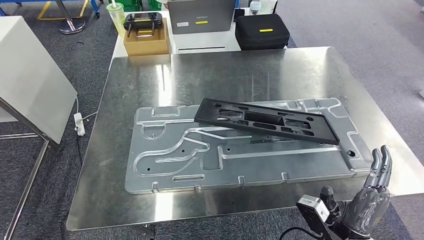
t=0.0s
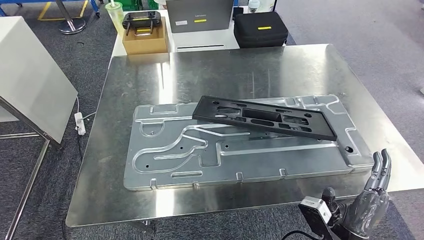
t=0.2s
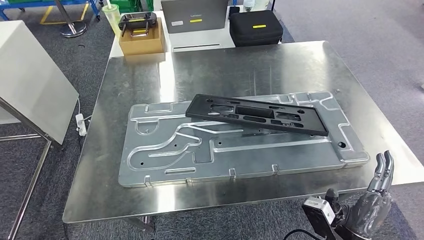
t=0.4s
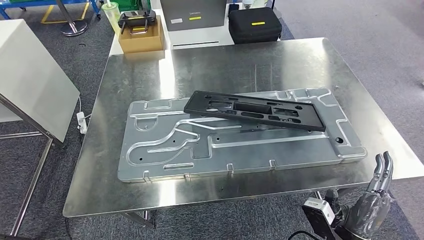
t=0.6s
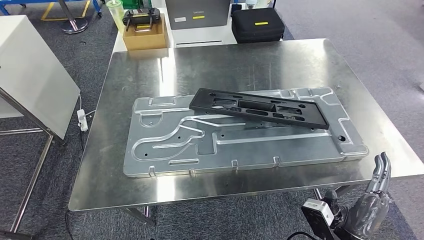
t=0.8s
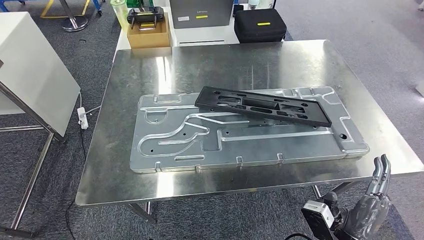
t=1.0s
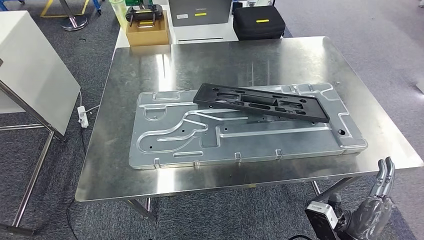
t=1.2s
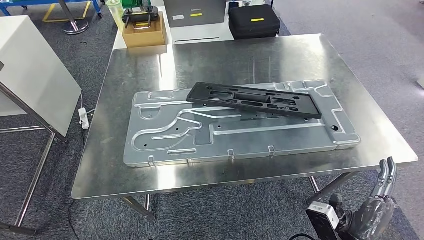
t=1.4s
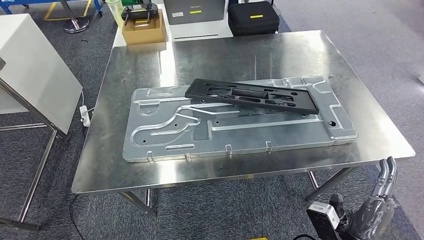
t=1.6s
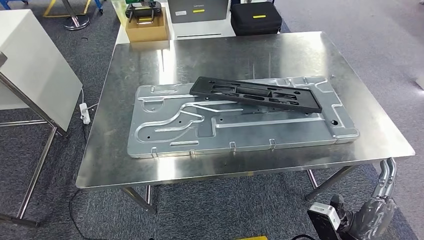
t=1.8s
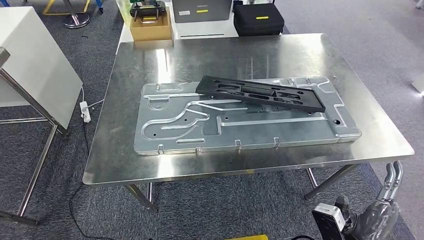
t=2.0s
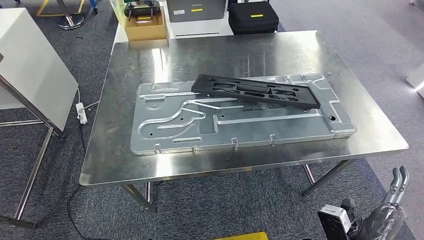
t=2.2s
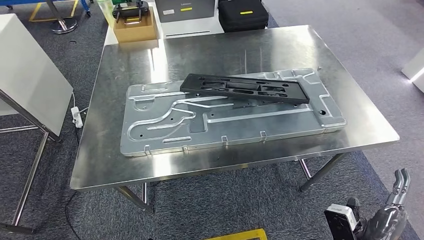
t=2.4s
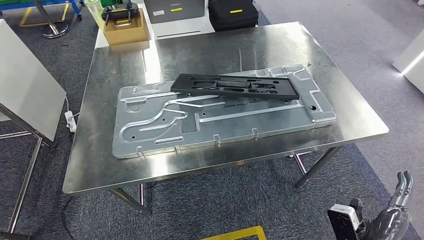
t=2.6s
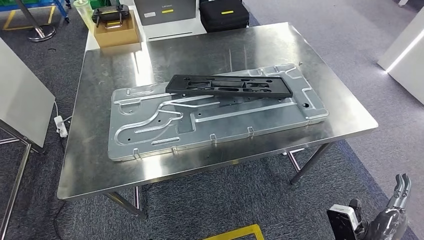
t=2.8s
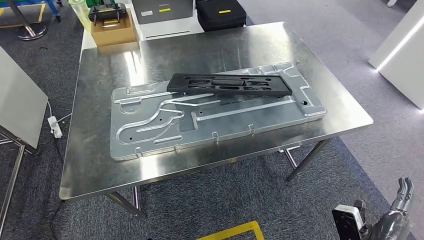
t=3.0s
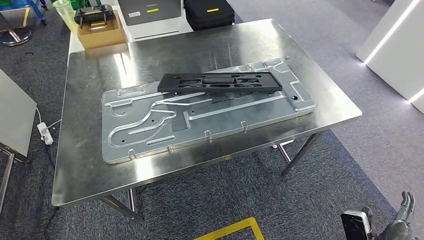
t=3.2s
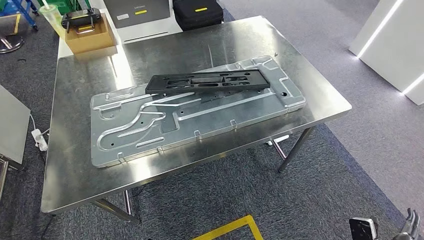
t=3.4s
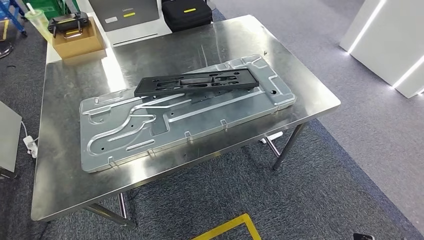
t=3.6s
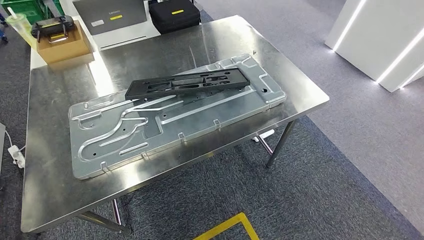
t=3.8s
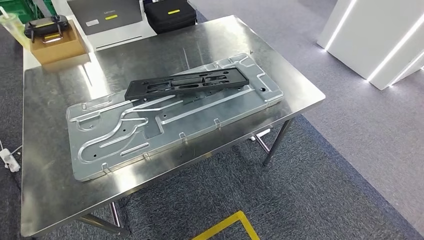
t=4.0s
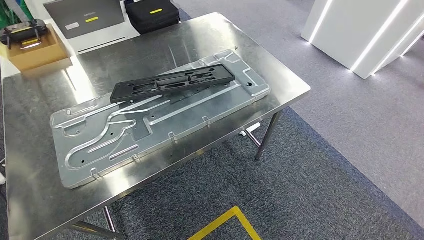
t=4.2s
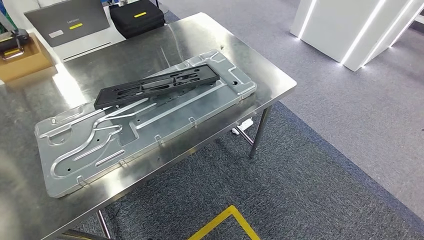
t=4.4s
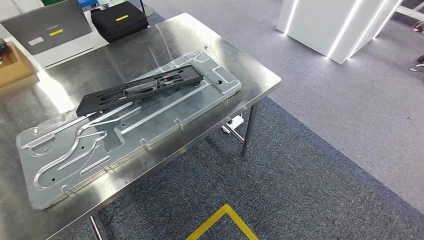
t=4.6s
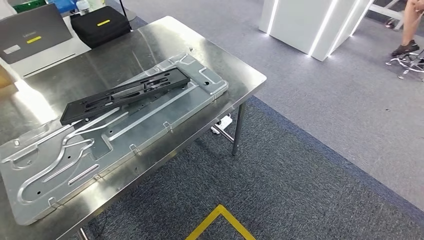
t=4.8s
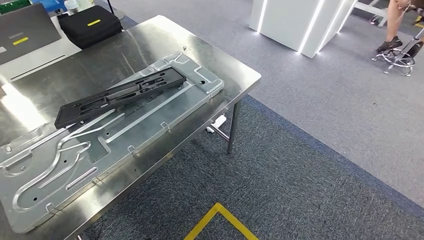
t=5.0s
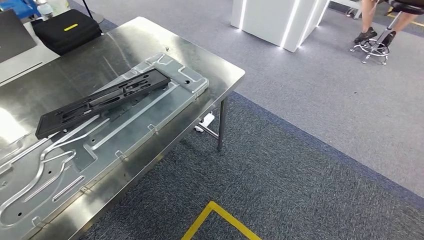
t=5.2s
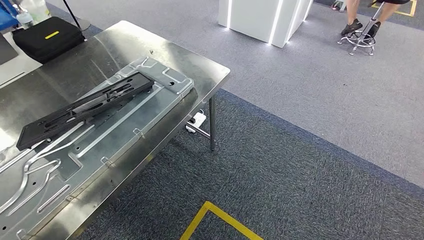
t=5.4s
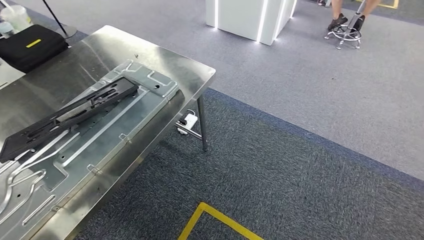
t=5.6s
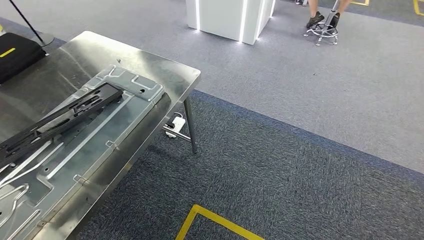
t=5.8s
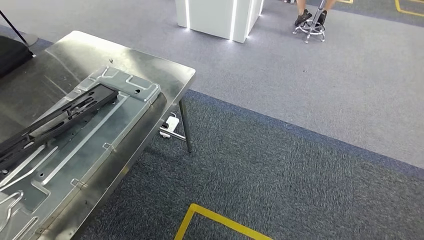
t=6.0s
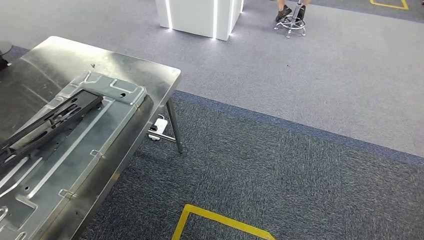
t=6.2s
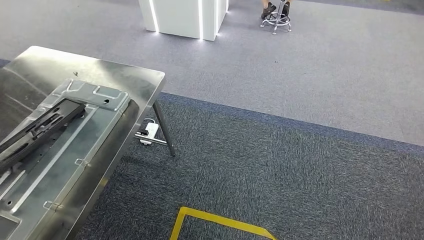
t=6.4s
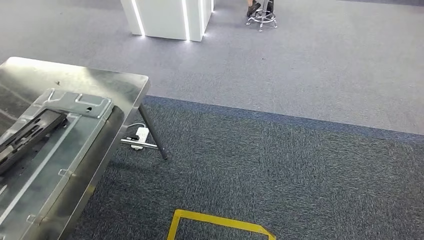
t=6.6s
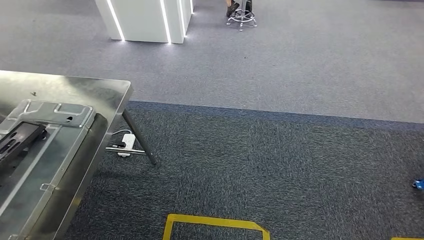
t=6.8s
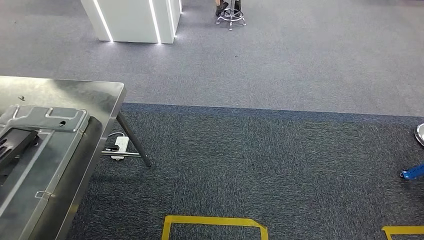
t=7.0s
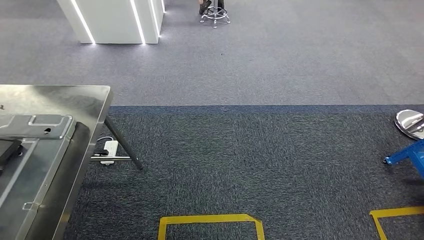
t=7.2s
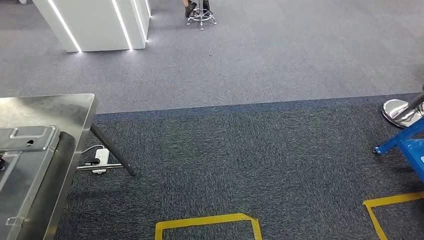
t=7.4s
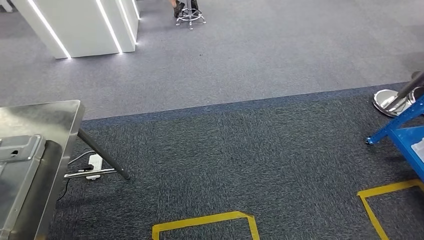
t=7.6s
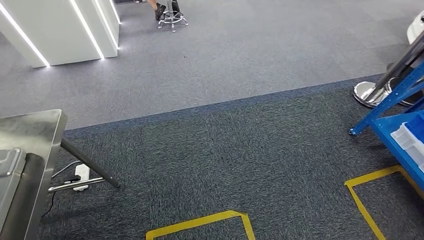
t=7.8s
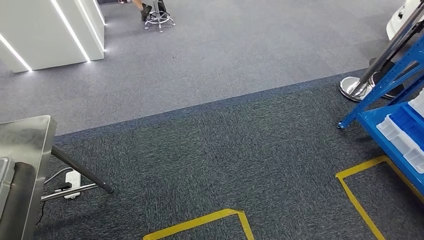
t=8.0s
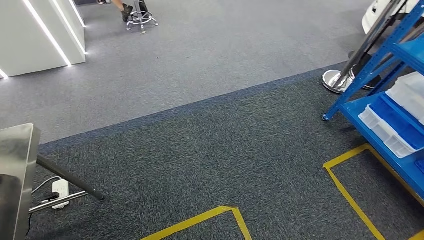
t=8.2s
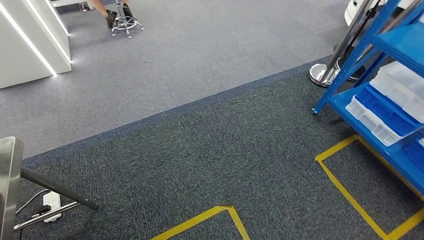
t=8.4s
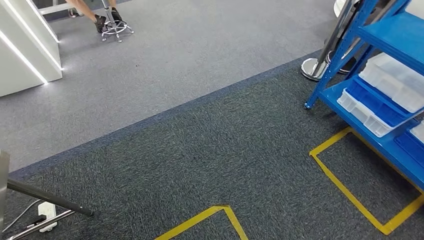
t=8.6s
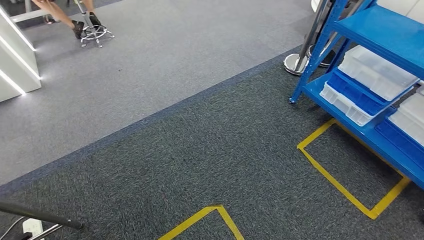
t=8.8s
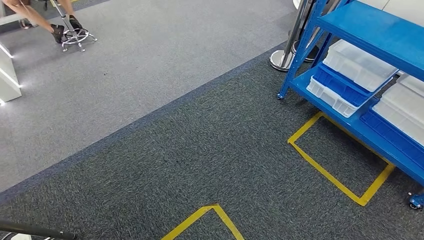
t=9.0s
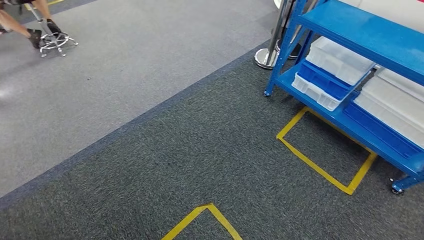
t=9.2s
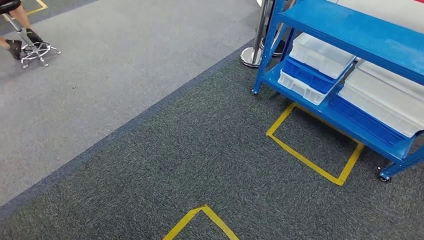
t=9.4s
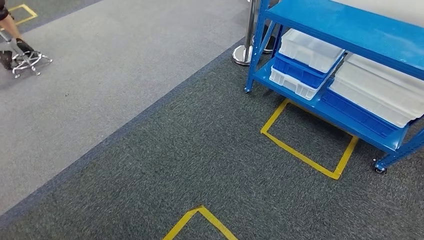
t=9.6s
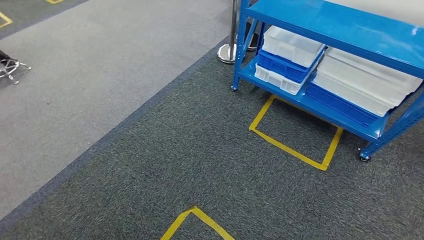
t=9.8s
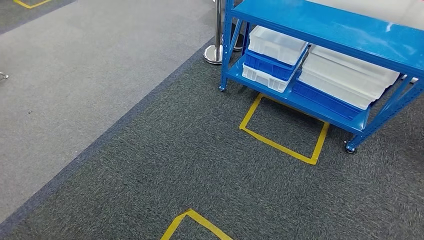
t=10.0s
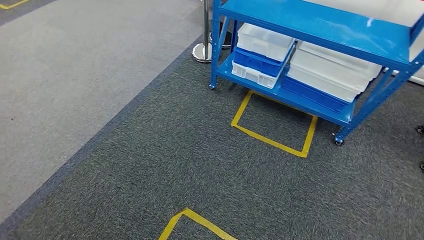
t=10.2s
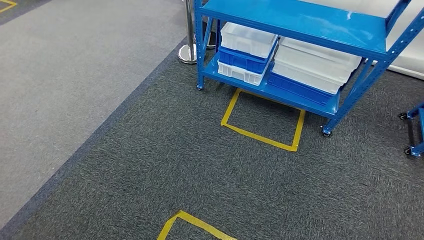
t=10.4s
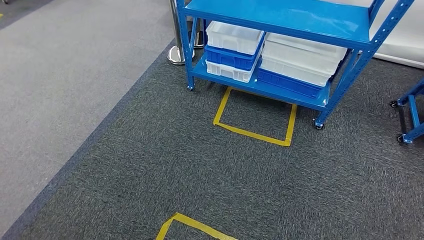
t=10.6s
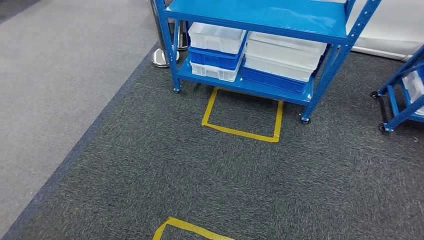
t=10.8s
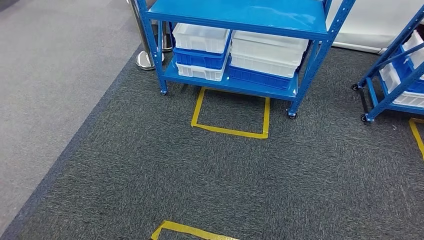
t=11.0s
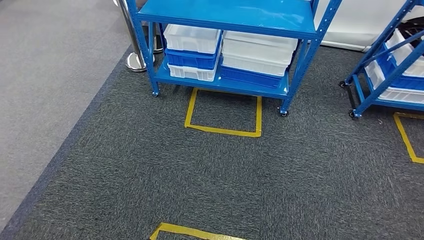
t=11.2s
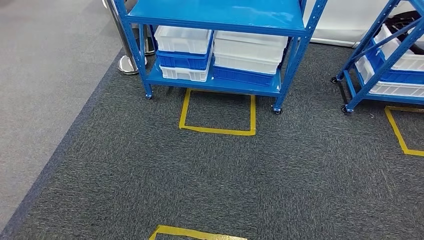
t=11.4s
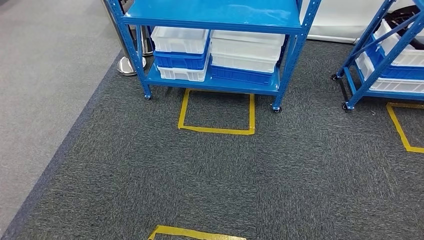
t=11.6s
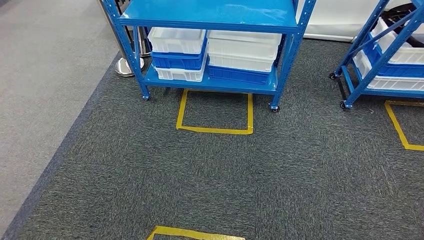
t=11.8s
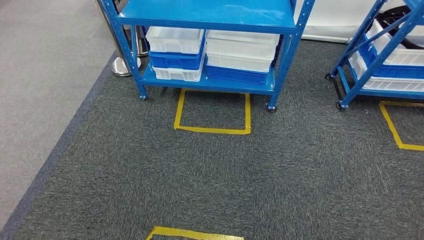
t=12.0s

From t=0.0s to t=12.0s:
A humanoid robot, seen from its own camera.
Step, from t=0.0s to t=2.0s: Insert the large material into the corresponding slot on the workbench.

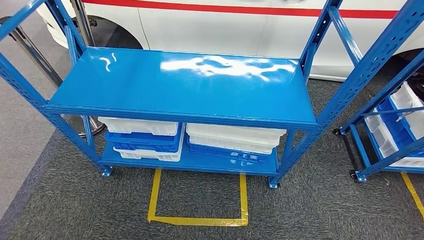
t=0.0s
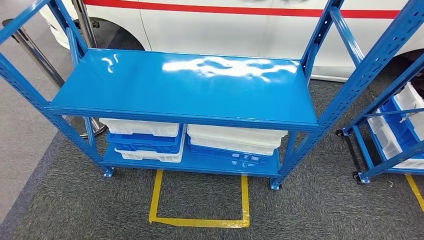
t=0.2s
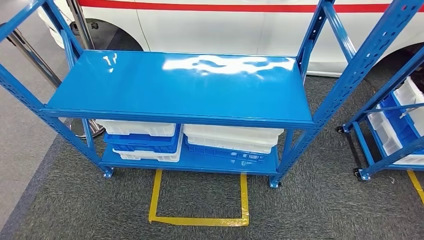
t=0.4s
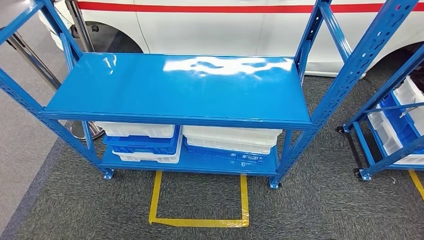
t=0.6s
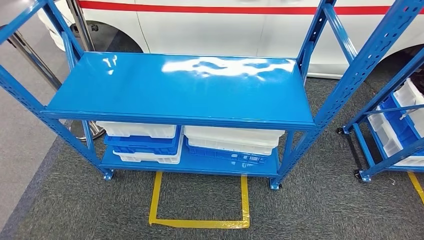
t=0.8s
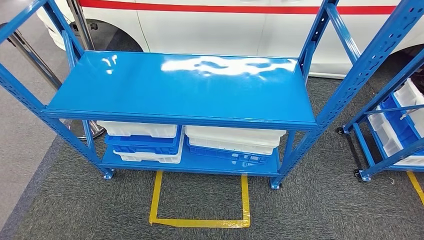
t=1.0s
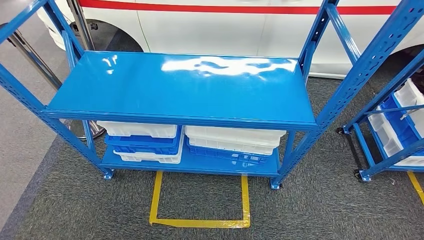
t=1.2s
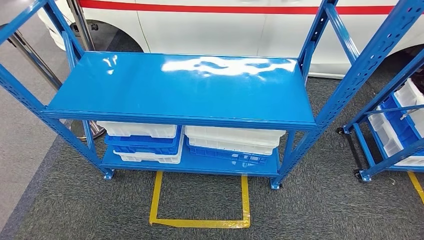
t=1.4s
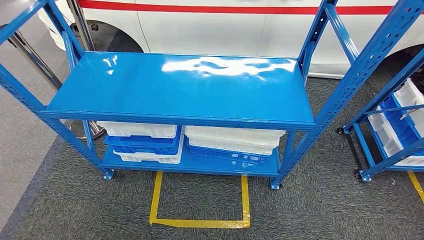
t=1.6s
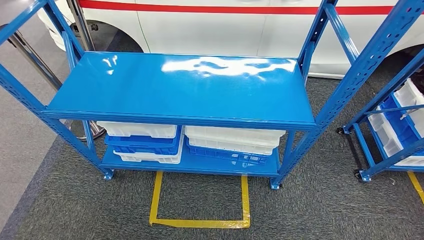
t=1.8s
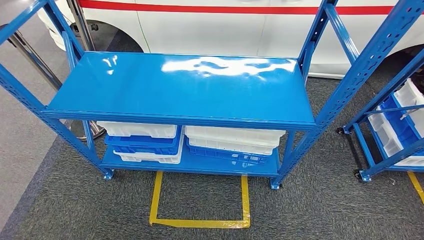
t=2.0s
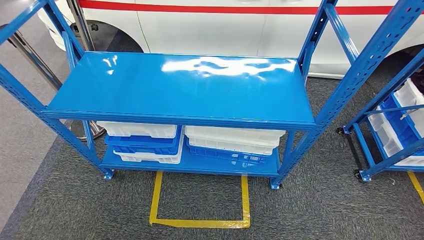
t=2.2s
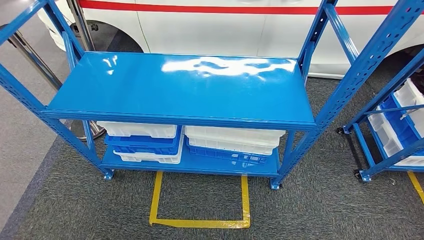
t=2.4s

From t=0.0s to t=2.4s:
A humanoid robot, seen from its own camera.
Step, from t=0.0s to t=2.4s: Move to the initial position of the shelf.
From t=1.2s to t=2.4s: The left hand changes place by approximately 5 cm.

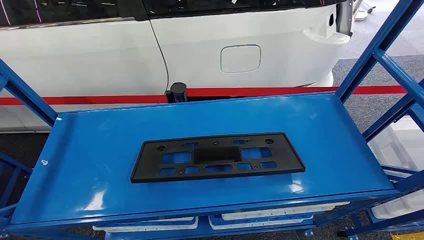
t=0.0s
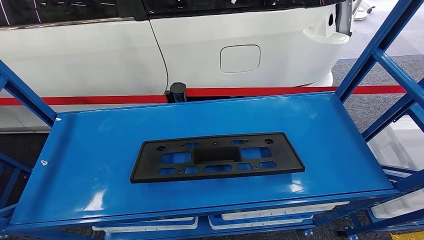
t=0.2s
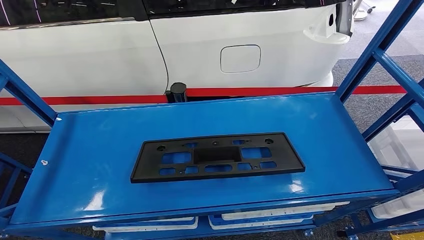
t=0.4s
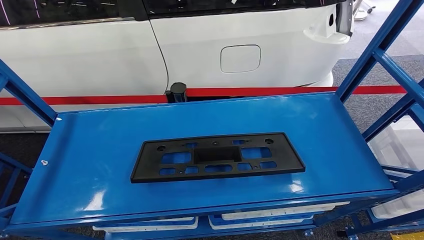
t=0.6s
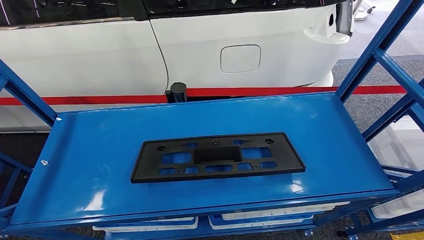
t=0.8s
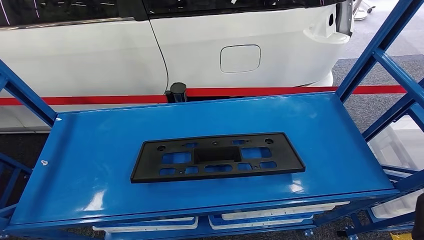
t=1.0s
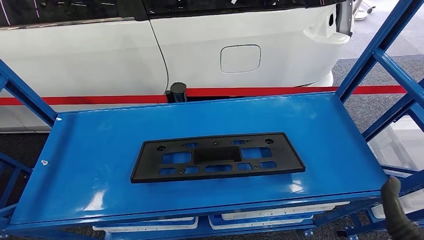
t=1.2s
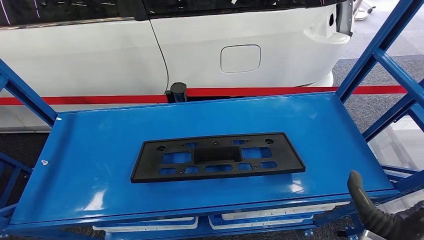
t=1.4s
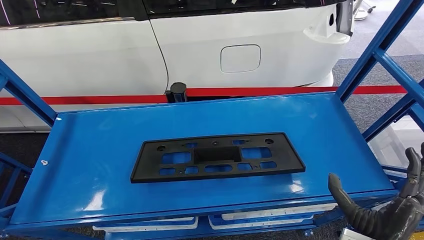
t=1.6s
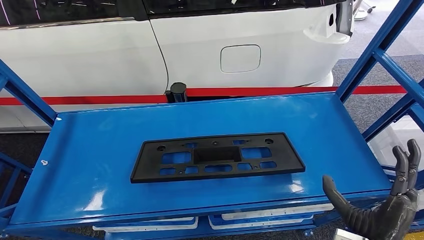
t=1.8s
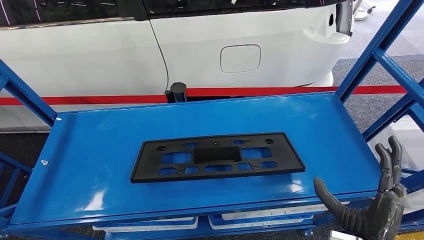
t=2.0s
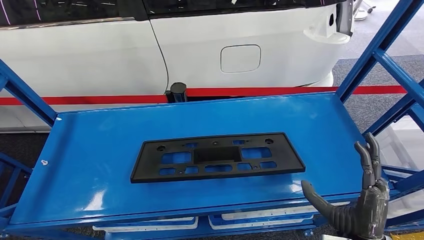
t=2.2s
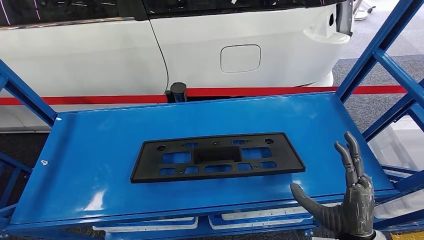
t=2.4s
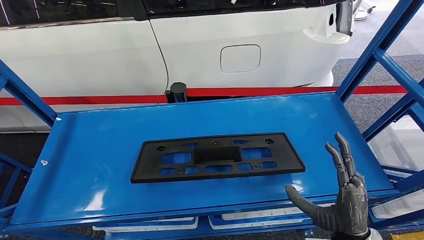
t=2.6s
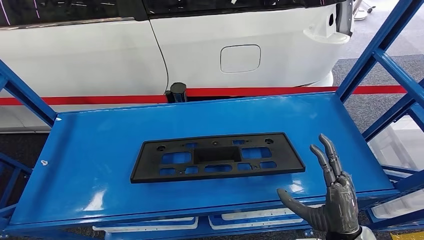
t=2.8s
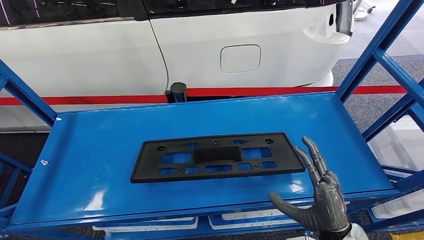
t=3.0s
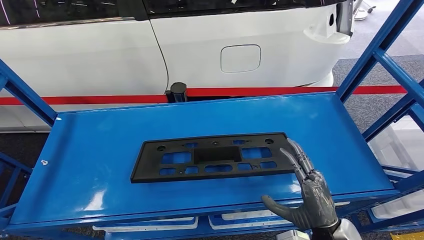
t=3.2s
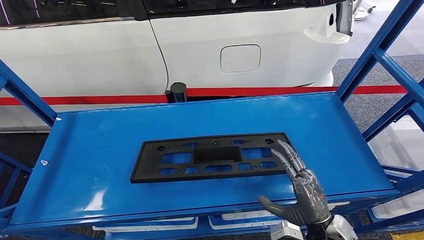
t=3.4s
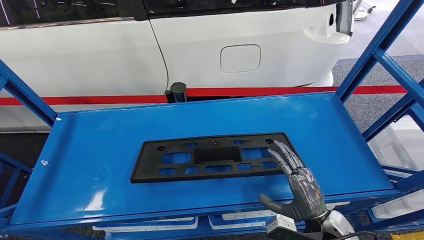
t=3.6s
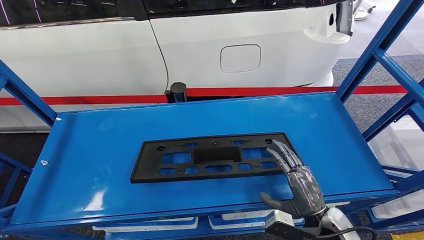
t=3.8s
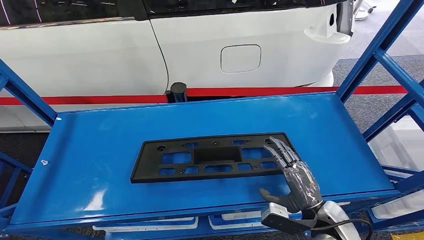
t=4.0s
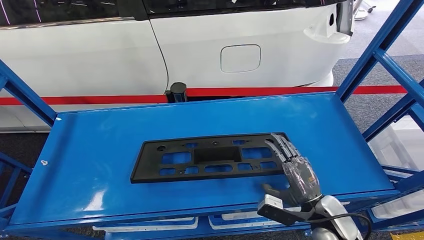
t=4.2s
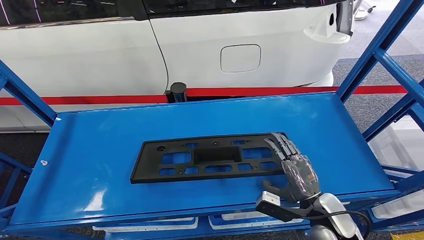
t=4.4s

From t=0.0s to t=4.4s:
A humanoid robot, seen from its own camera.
From t=3.0s to t=4.4s: The right hand moves forward, some 5 cm.
